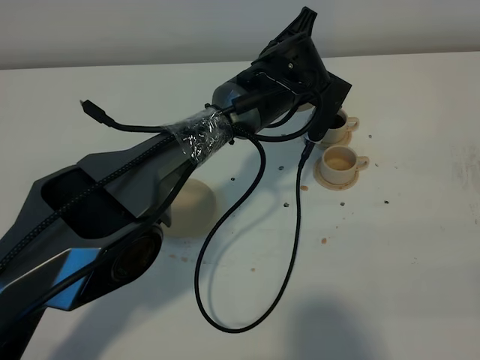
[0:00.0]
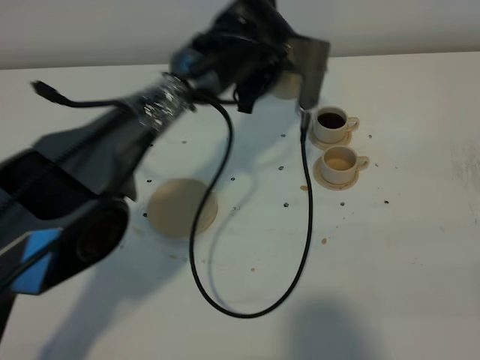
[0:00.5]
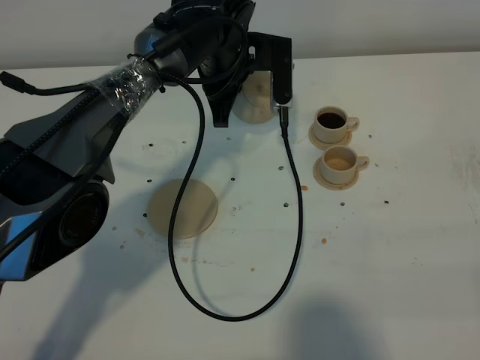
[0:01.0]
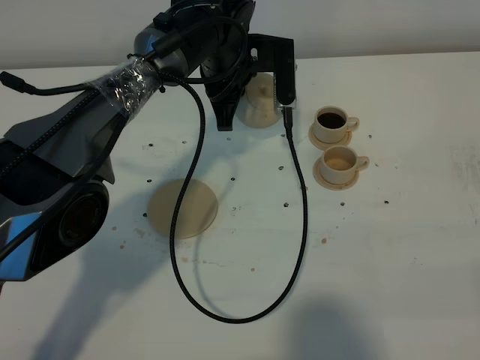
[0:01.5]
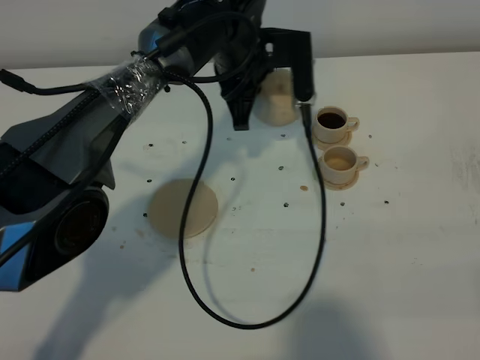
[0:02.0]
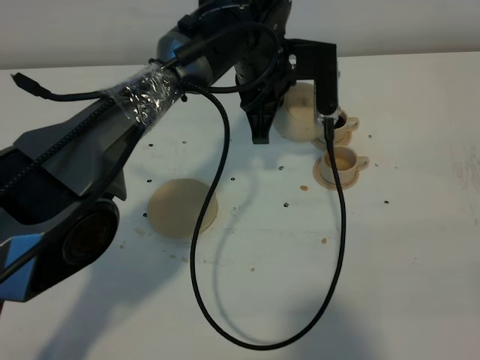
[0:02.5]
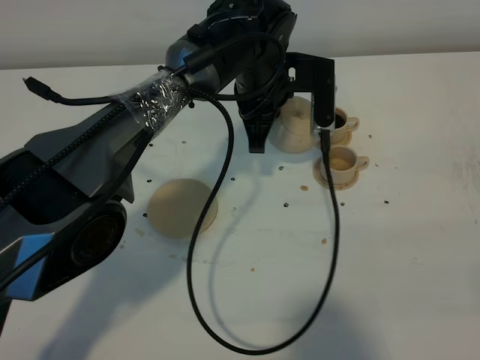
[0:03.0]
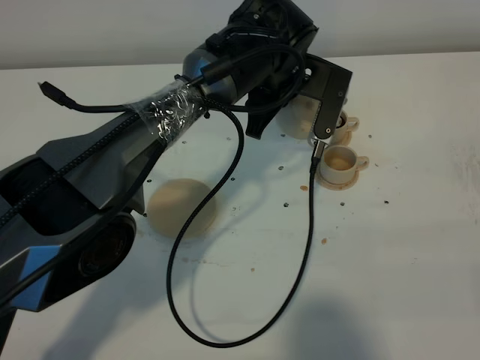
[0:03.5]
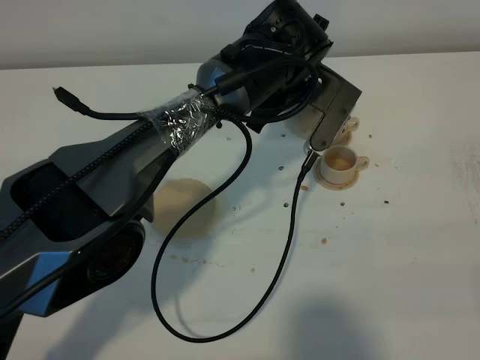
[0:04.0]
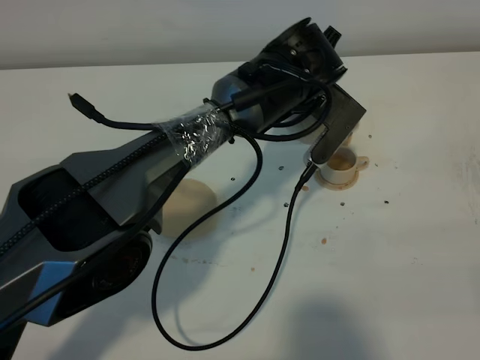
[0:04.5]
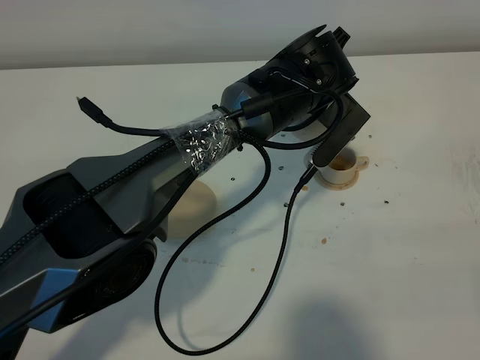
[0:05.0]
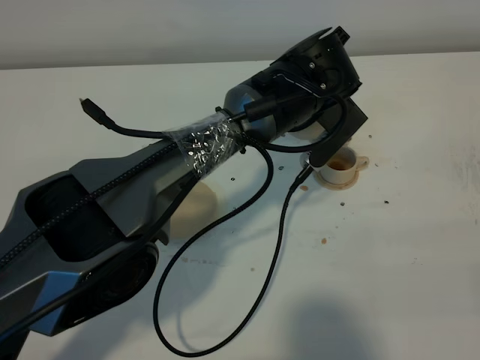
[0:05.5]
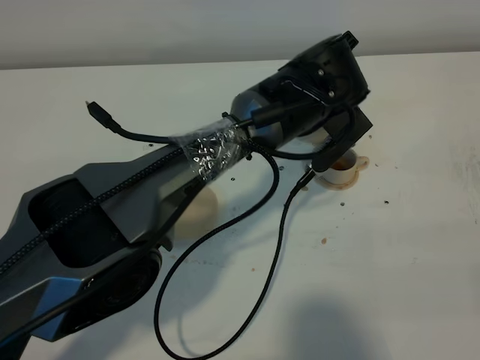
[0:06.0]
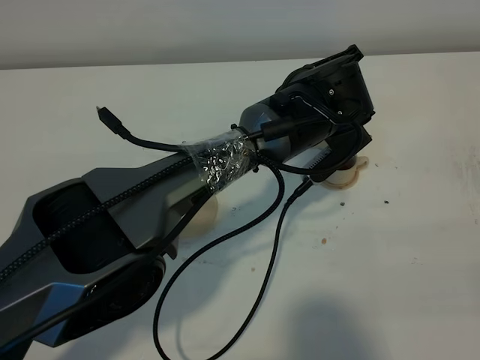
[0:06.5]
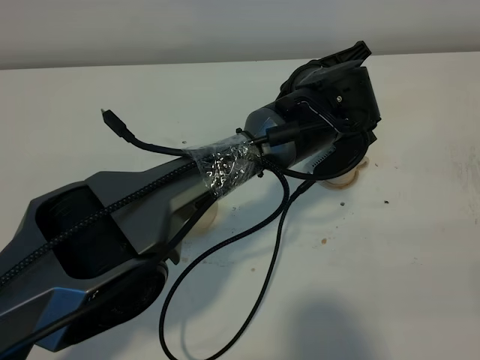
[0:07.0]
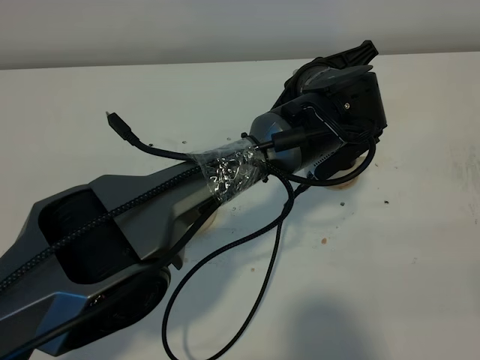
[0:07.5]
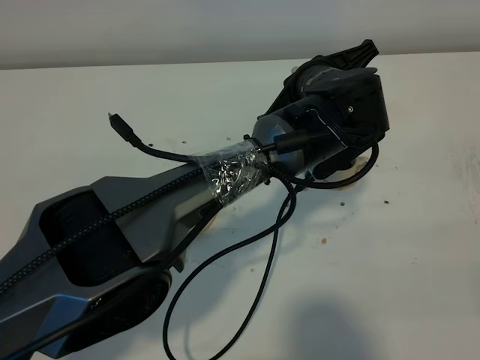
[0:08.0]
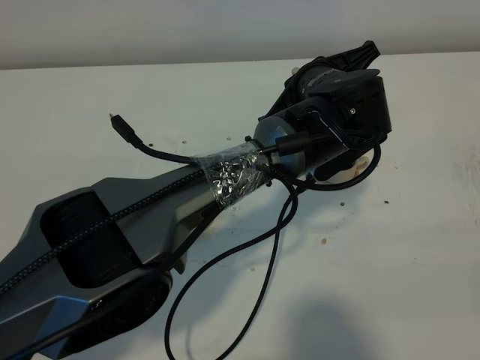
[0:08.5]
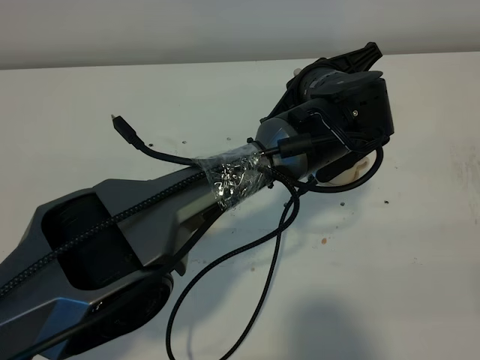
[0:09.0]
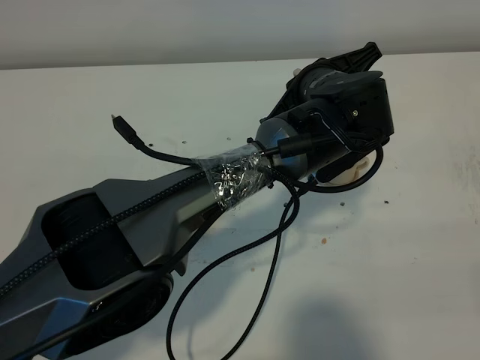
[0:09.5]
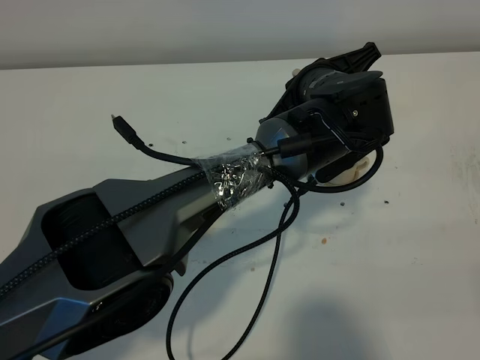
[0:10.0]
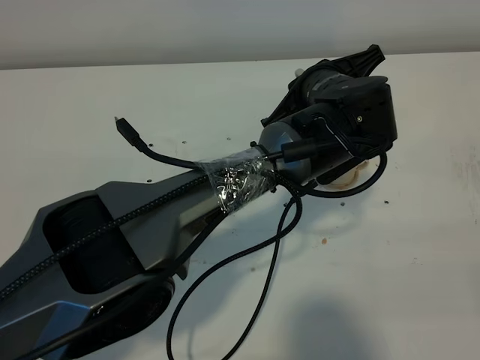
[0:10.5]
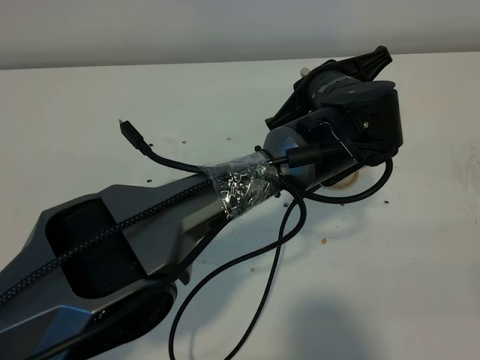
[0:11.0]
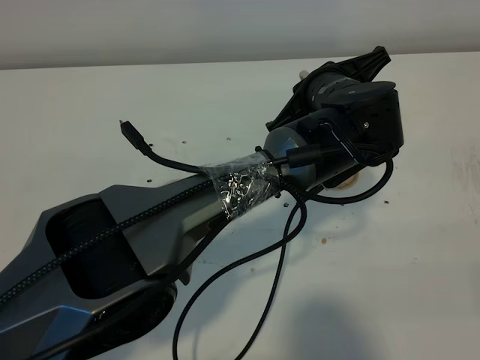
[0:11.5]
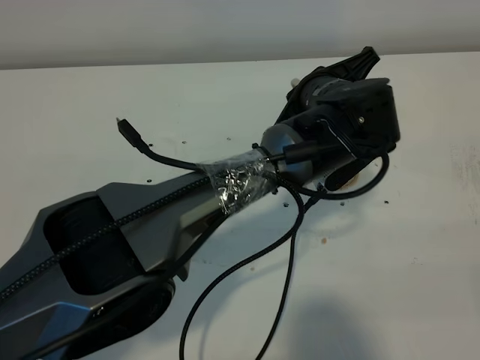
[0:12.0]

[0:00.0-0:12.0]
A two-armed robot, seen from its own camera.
Task of the whole recording: grasp the brown teapot and pour the tea into the two brown teacups one by one, put the brown teapot back in its original place.
0:00.0 to 0:02.0: The left gripper heads to the left, covering approximately 5 cm.
0:02.0 to 0:04.0: The left gripper moves to the right, about 5 cm.
0:08.0 to 0:10.0: The two grippers keep their place.
0:10.0 to 0:12.0: There are only small adjustments of the grippers.

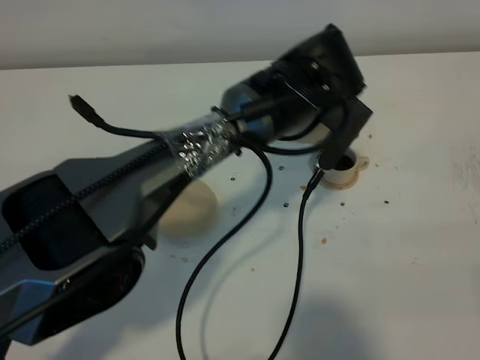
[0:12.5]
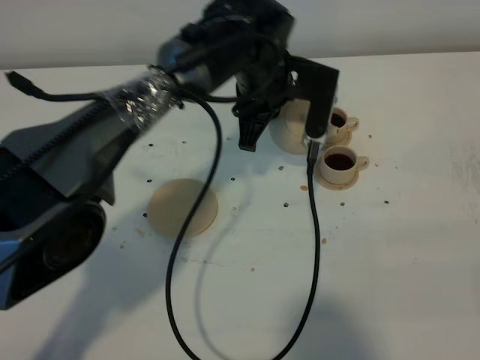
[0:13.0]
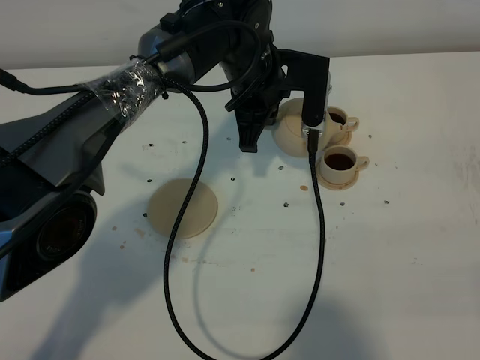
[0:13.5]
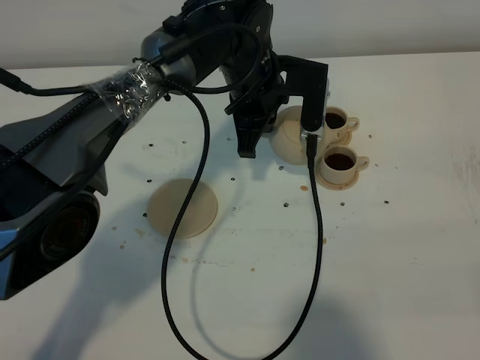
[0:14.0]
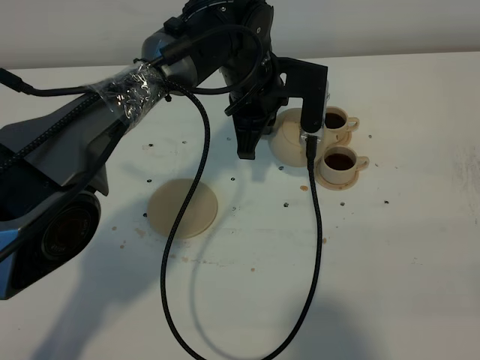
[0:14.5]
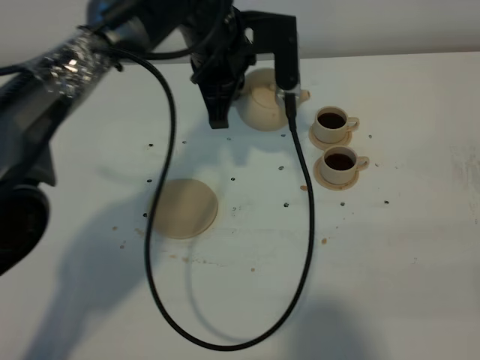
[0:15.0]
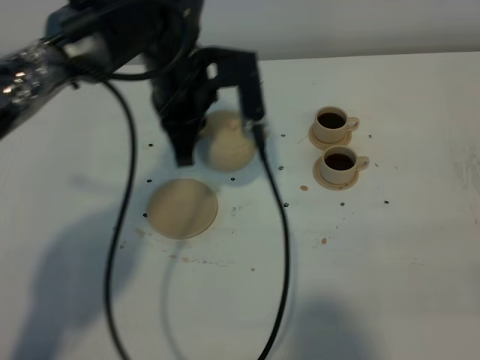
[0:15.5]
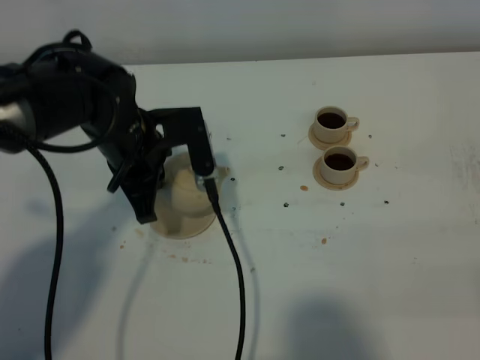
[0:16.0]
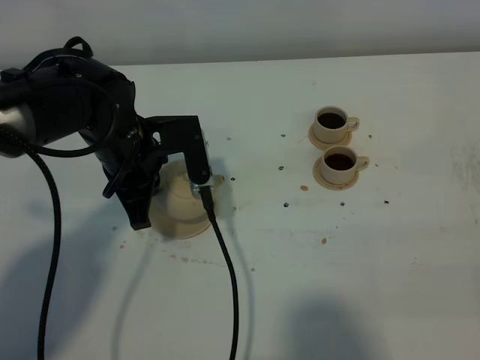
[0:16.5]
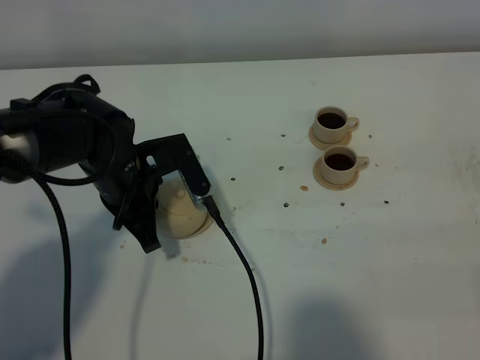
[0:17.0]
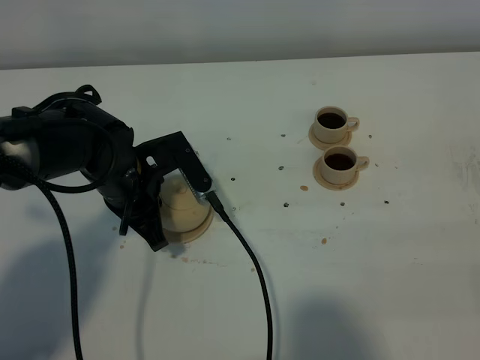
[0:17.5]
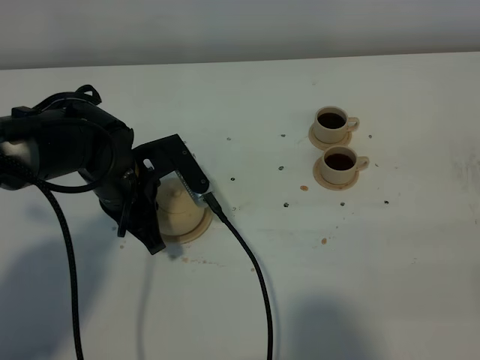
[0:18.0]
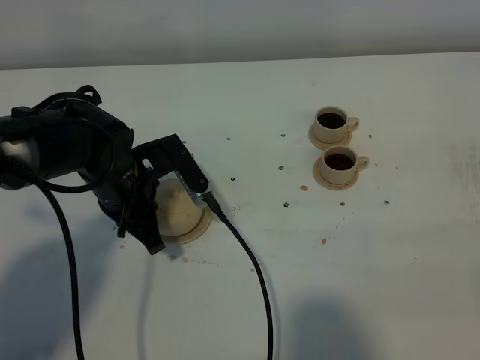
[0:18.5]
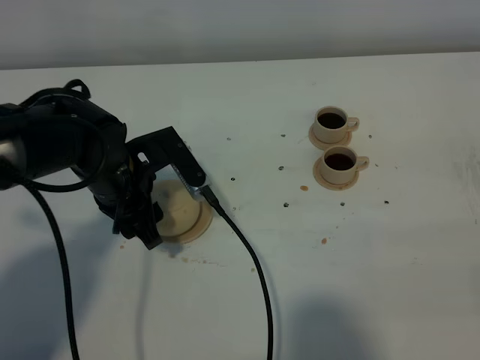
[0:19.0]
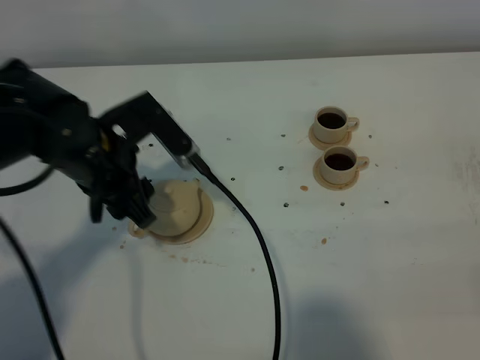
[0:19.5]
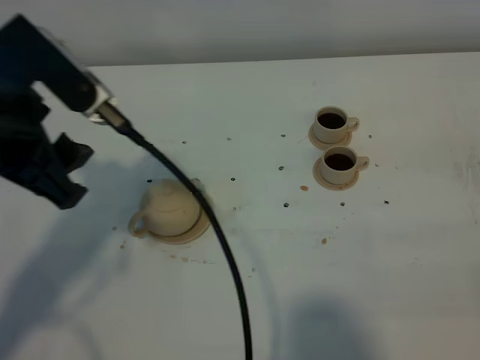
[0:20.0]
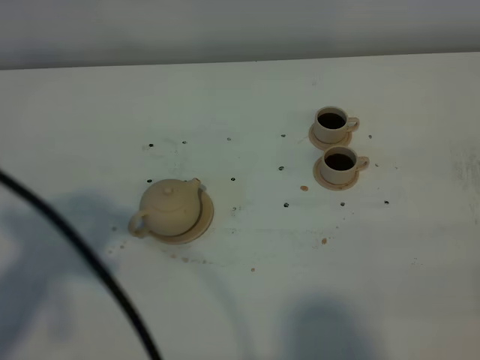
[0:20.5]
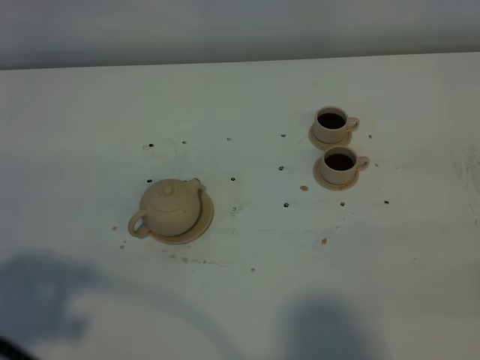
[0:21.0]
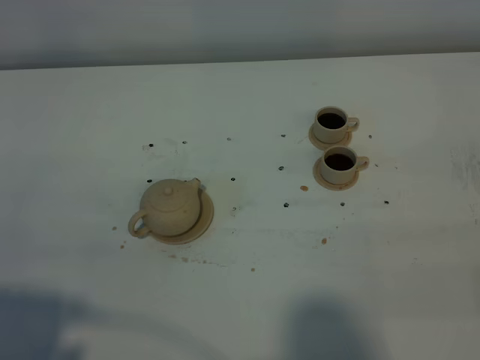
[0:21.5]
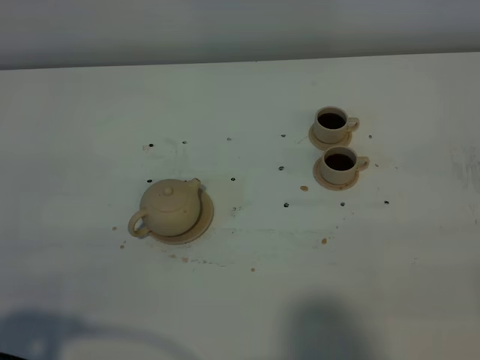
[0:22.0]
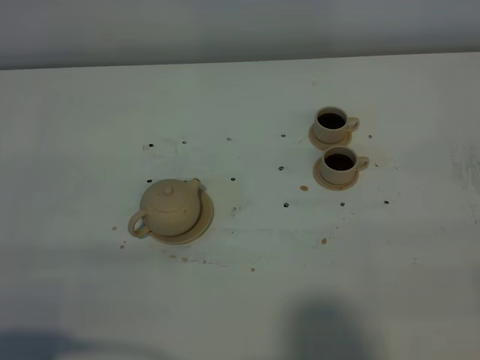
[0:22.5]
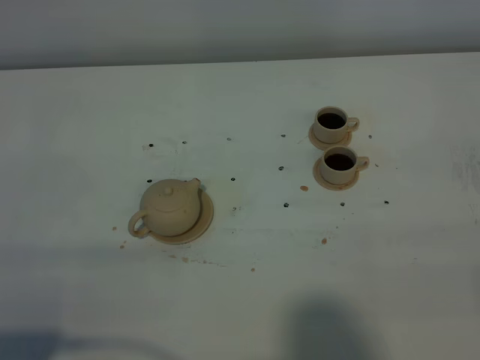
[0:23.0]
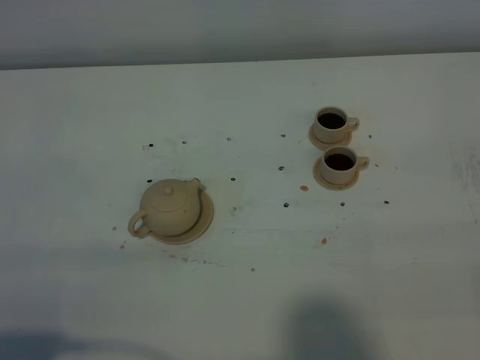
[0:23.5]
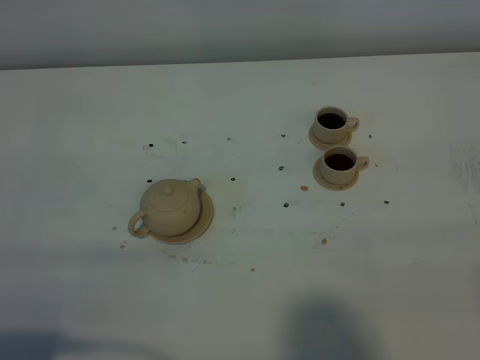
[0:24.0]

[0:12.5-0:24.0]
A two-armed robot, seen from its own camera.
Task of the whole recording: grasp the brown teapot and pour the tea into the two brown teacups one by one, put the brown teapot back in its original place.
0:12.5 to 0:14.5: The left gripper travels to the left by roughly 5 cm.
0:14.5 to 0:16.5: The left gripper moves to the left and backward, approximately 15 cm.
0:18.5 to 0:20.0: The left gripper is displaced upward and backward by some 20 cm, and opens up.
0:20.0 to 0:22.0: The left gripper moves backward, to the left and downward, about 20 cm.

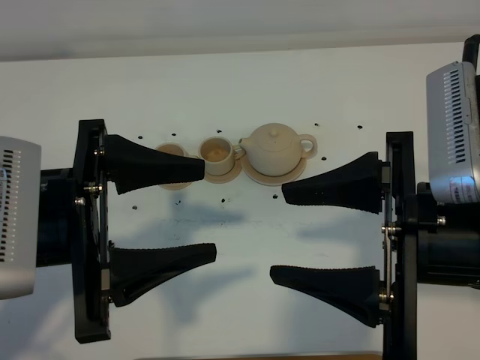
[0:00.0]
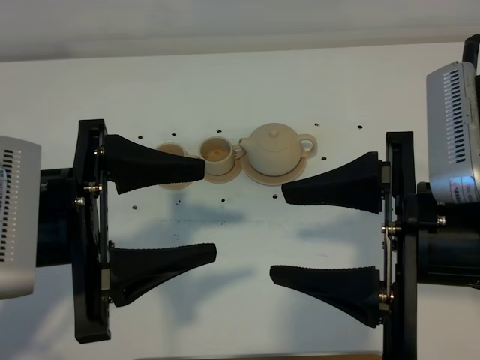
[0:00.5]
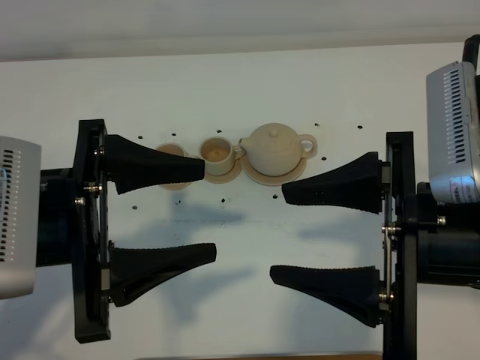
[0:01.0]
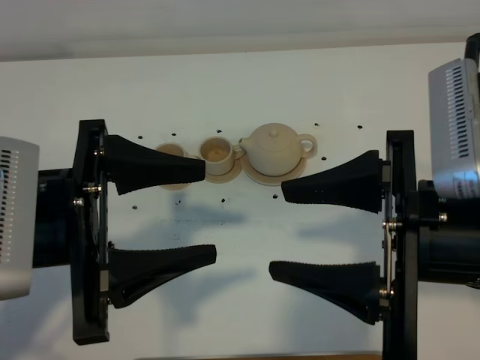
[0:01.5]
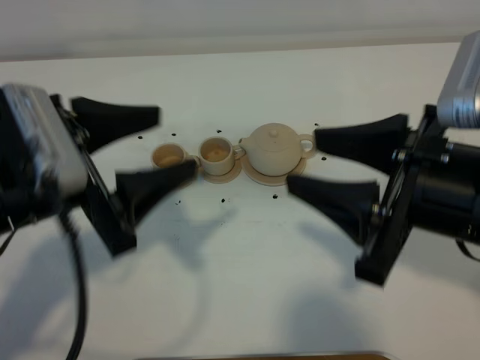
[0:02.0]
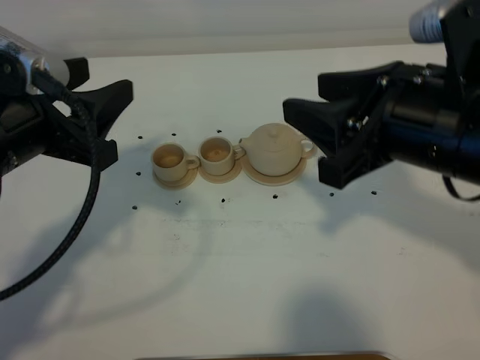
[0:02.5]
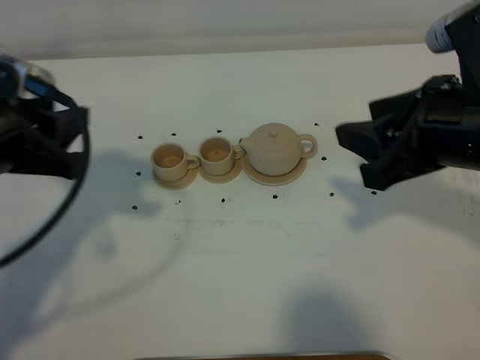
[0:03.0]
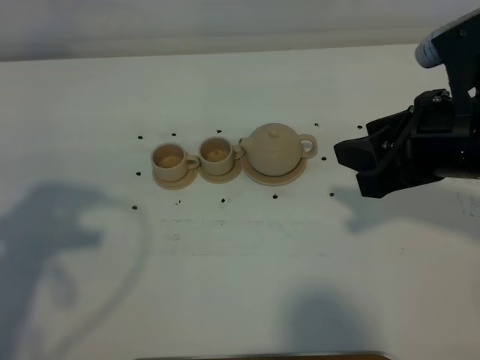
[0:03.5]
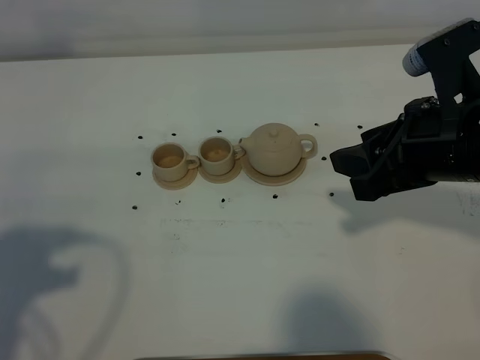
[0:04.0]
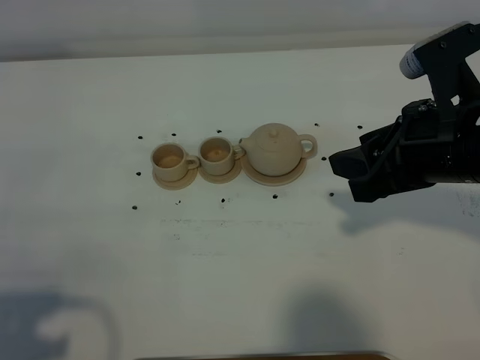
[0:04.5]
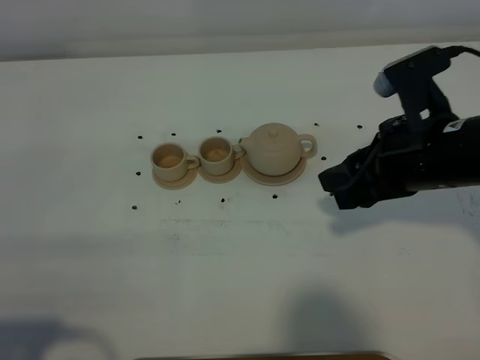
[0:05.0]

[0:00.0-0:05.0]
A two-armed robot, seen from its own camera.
Task of the whole recording: grasp the brown teapot and pour the tea into the two brown teacups one by one, put the brown teapot back in its original place.
0:00.0 to 0:02.5: The grippers both shift forward by some 5 cm. The left gripper closes.
0:02.5 to 0:05.0: The right gripper moves downward, about 10 cm; the left gripper moves backward, roughly 20 cm, and closes its fingers.
